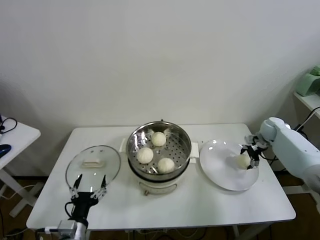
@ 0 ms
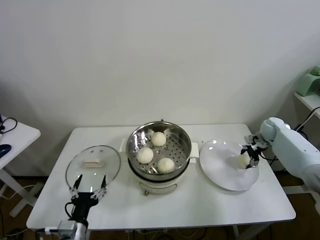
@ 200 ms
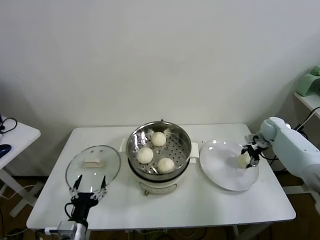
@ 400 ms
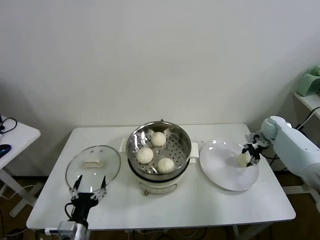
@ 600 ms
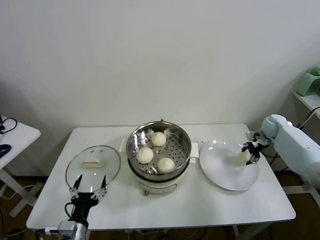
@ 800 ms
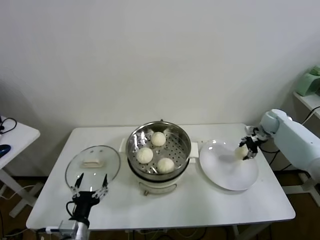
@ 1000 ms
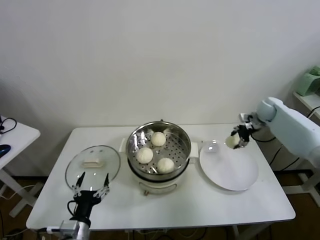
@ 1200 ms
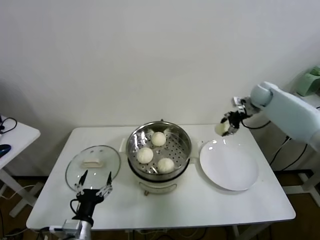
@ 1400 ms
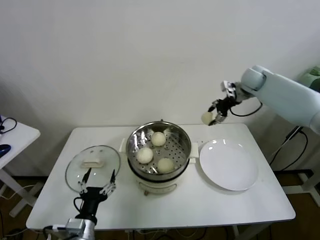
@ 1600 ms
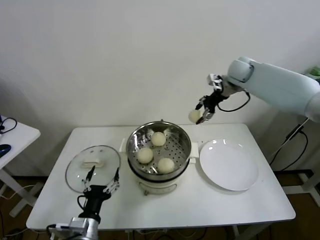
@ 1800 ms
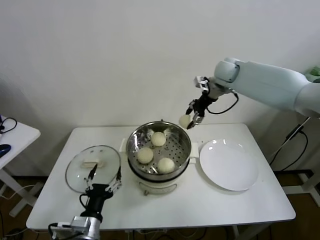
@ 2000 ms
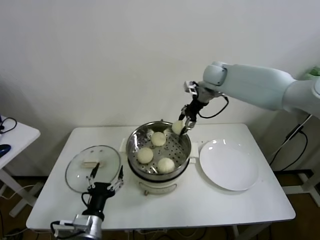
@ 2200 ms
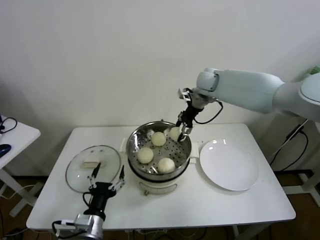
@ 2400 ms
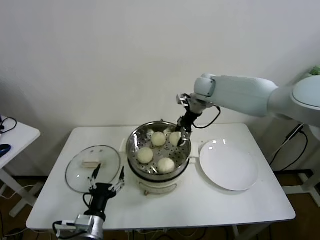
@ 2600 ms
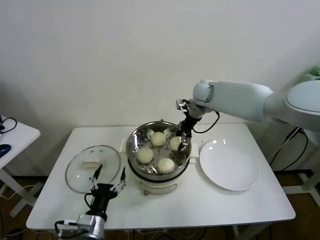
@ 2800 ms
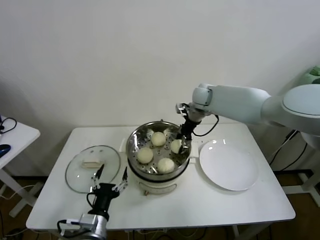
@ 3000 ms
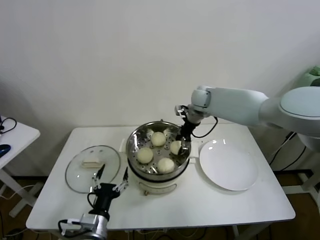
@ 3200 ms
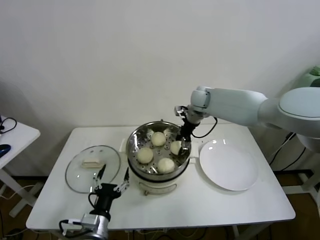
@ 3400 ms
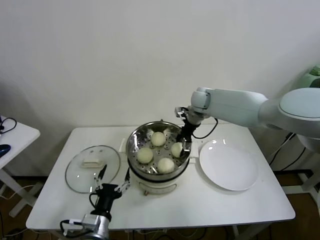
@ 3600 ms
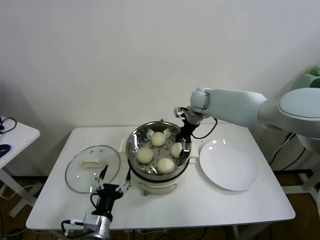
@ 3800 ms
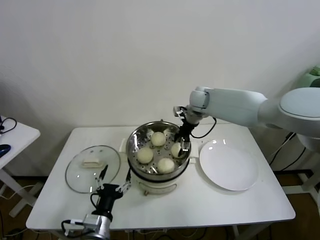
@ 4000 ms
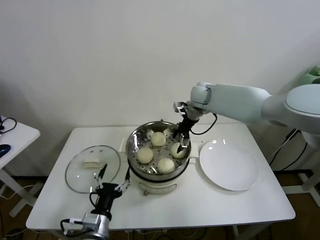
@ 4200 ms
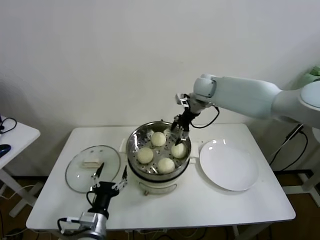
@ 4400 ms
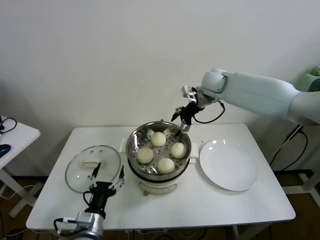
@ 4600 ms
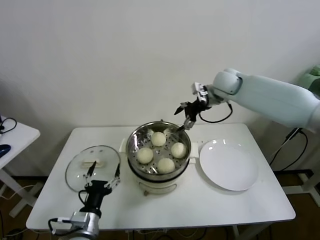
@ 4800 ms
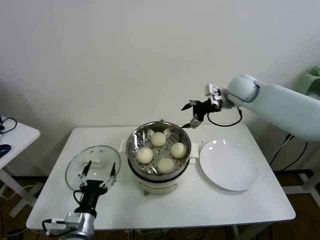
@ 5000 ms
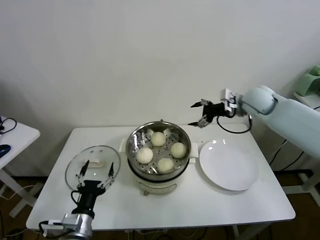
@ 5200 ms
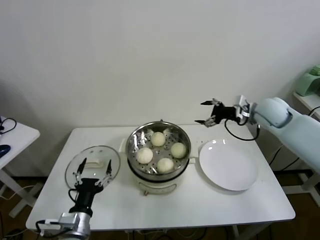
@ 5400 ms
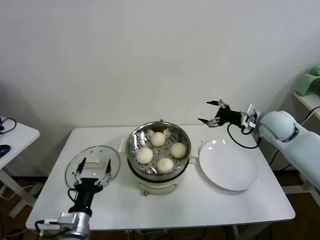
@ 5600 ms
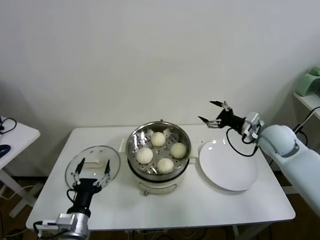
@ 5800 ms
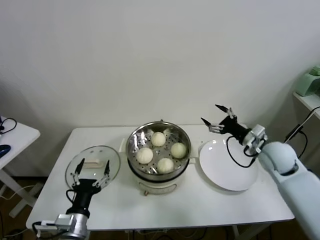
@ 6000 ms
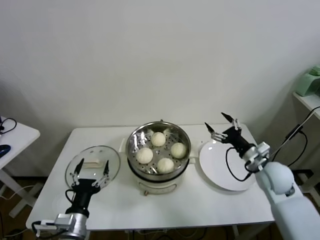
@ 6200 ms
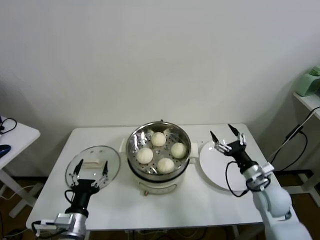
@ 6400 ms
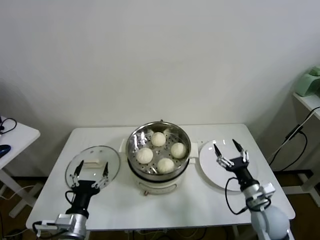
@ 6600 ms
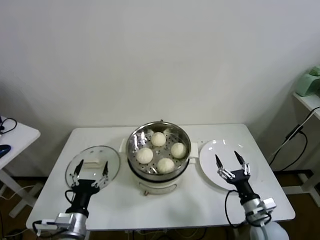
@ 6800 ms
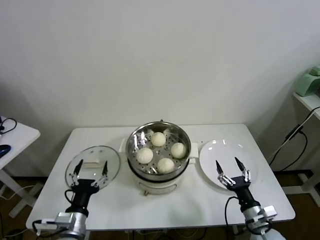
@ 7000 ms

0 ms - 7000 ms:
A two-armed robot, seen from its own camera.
Task of the whole recording: take steamed baozi put them in steamer.
Step, 400 ms - 3800 ms: Place the baozi on the steamer with right gripper.
0 ms - 1400 ms: The right gripper heads upward and to the left, covering about 15 cm, and closes up.
1400 ms - 2800 ms: The right gripper travels to the left by about 25 cm.
2800 ms - 4200 ms: The right gripper opens.
4200 ms - 5600 ms: The left gripper moves roughly 5 cm. Meanwhile the right gripper heads to the right and backward, covering some 25 cm.
5600 ms - 7000 ms: The right gripper travels backward and downward by roughly 35 cm.
